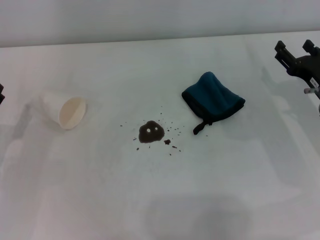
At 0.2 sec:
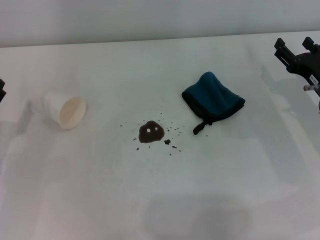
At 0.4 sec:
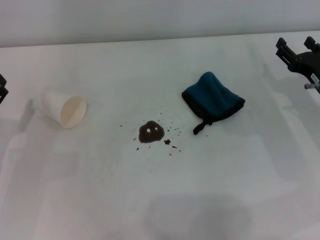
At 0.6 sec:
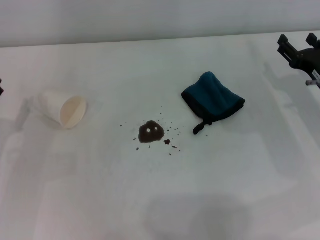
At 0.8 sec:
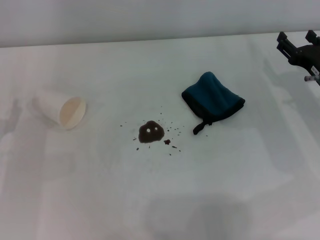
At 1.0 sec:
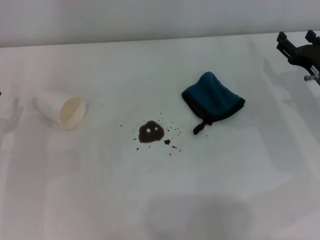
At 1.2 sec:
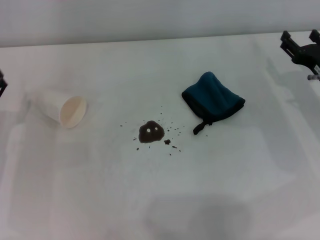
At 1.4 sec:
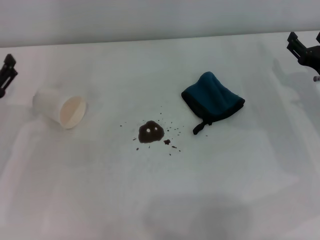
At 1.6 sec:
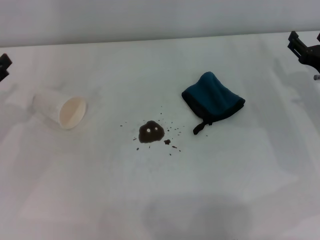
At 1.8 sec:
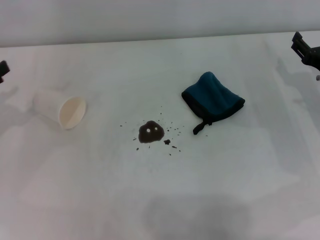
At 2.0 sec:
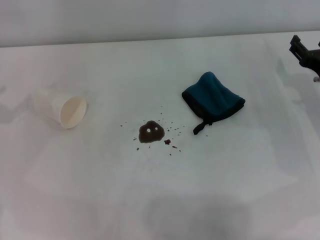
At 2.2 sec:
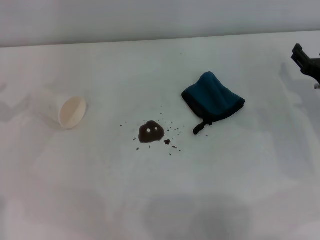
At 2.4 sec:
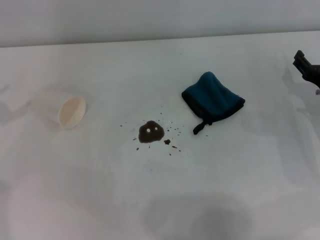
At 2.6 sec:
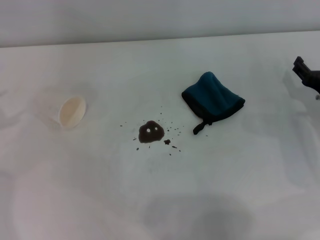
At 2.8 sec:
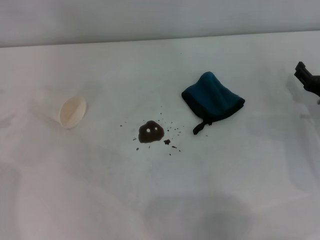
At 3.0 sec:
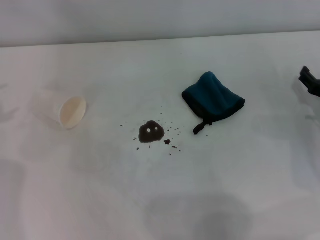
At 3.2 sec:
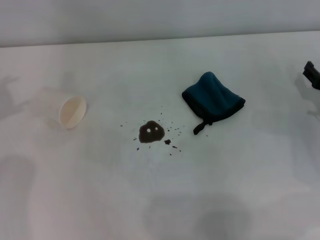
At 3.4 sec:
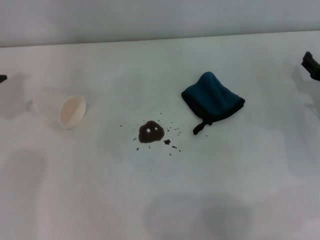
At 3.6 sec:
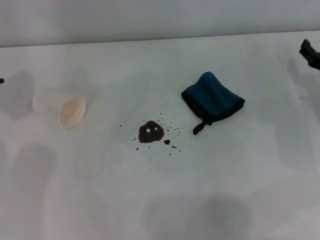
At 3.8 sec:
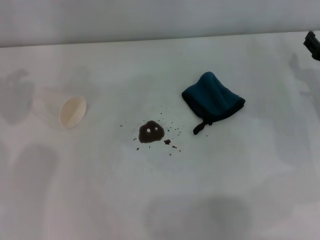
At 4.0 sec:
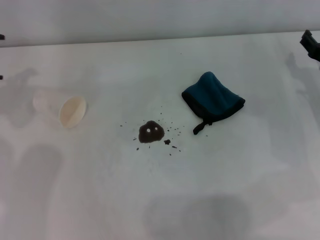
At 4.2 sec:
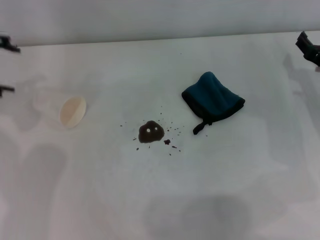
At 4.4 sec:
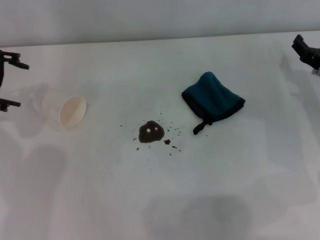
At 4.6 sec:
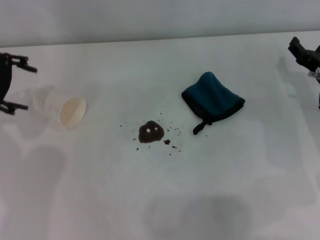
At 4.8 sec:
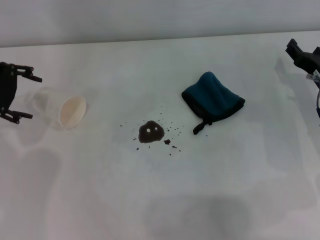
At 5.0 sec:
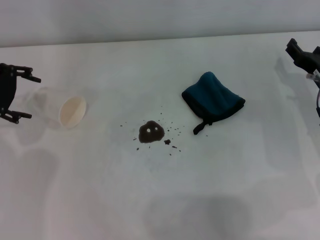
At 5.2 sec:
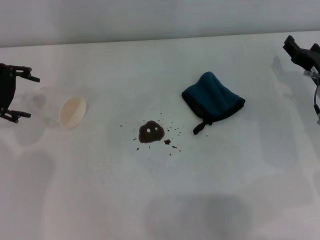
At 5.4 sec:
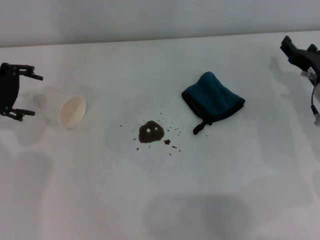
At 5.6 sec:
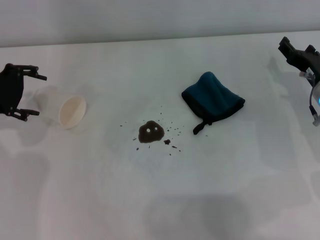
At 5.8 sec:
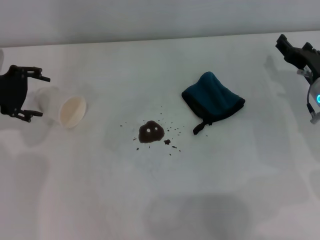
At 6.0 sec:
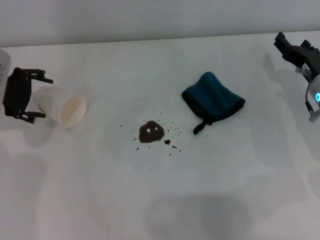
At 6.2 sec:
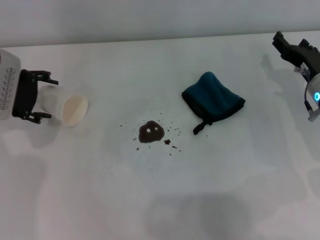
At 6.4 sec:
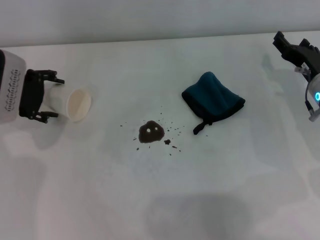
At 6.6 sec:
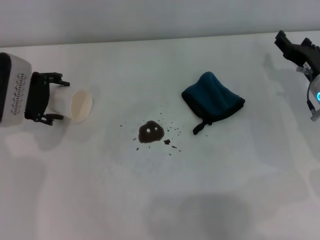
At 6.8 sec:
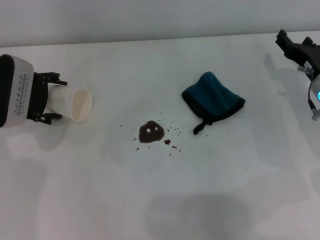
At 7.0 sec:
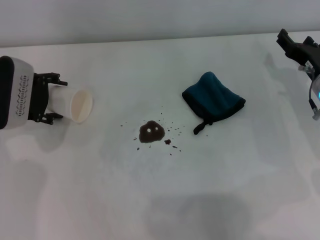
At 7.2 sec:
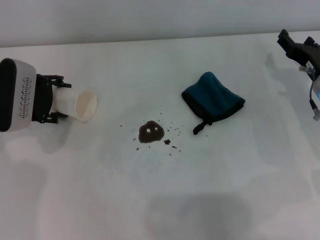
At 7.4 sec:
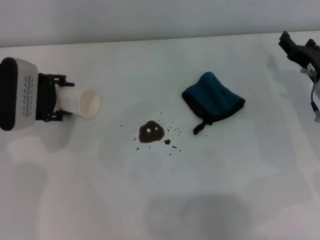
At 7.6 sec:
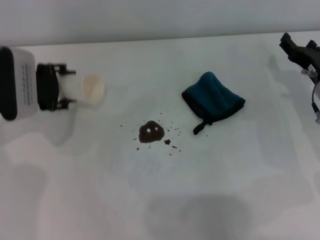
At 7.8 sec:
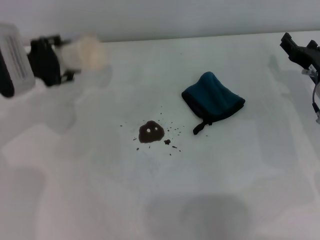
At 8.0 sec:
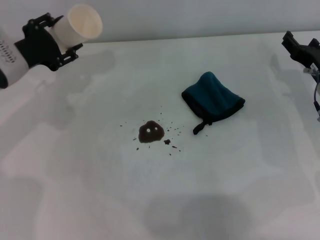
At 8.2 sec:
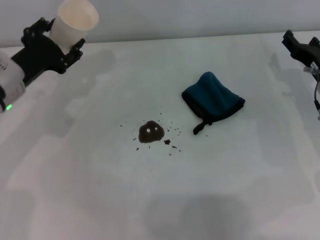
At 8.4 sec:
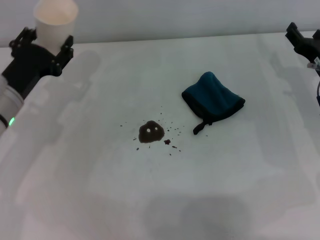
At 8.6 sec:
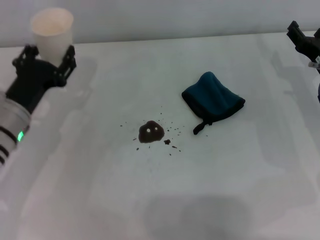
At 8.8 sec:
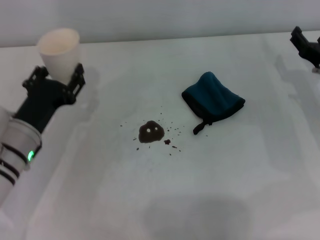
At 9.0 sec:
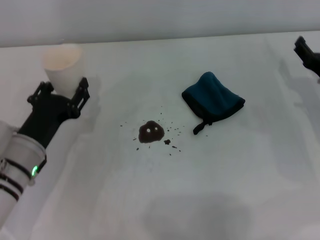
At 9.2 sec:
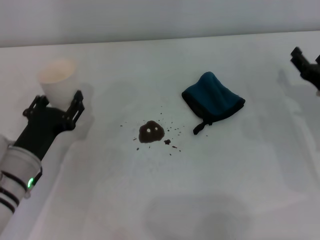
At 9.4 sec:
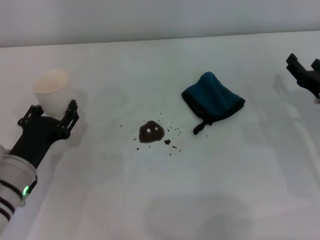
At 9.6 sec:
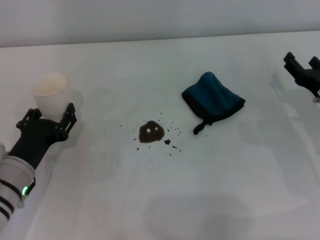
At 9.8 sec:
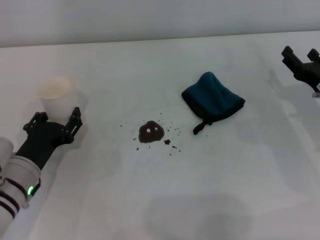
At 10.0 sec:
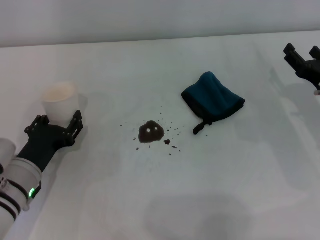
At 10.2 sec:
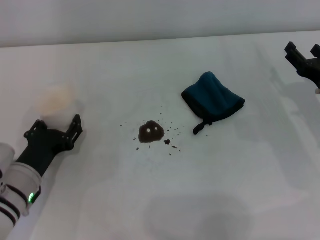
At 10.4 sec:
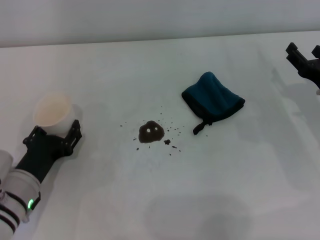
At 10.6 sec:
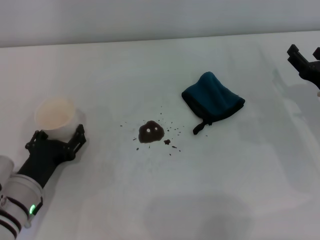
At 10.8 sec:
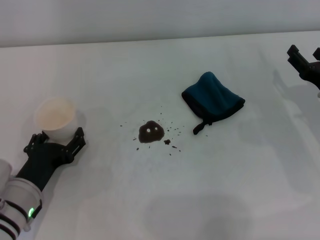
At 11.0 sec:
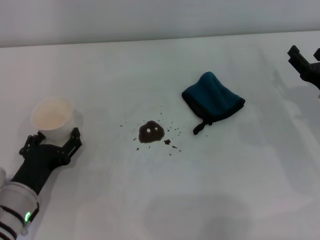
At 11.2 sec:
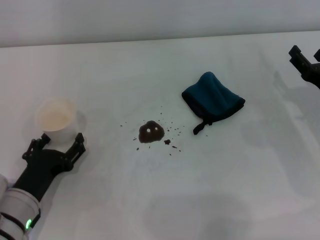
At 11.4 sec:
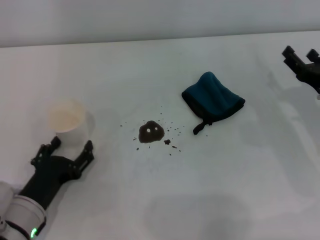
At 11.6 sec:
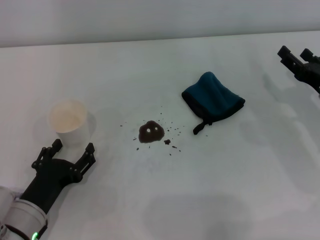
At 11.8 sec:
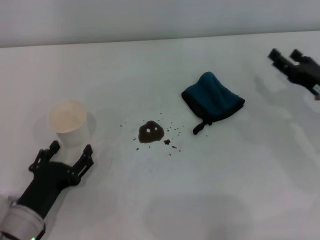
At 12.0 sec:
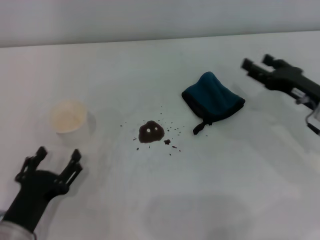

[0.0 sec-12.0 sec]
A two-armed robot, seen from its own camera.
Step, 0.0 sec to 6.4 sec: Grasp the paper cup with the left gripper.
Step, 6.6 sec to 10.8 sec: Stand the paper cup upright with the left gripper.
3.0 sec to 4.4 sec: The right gripper ends up some 5 cm from where it was; the left gripper heads to the right, covering some 10 cm.
4.4 sec to 6.0 sec: The left gripper is displaced downward by some 5 cm.
6.0 sec to 7.6 sec: The left gripper closes its fingers.
7.6 sec to 9.0 sec: The left gripper is displaced backward and downward by roughly 15 cm.
9.0 sec to 10.4 sec: The left gripper shifts by approximately 5 cm.
10.4 sec to 12.0 sec: The left gripper shifts roughly 10 cm backward, and opens its fingers.

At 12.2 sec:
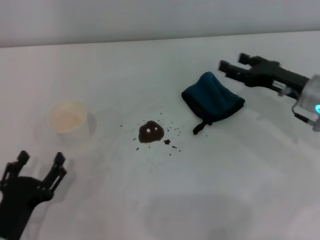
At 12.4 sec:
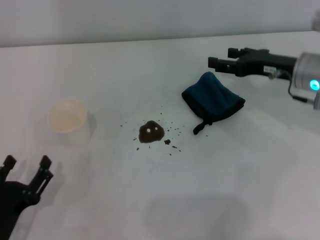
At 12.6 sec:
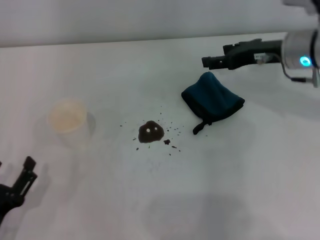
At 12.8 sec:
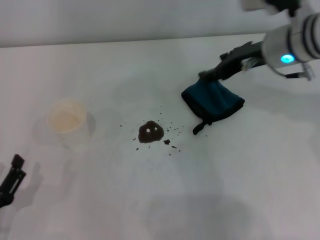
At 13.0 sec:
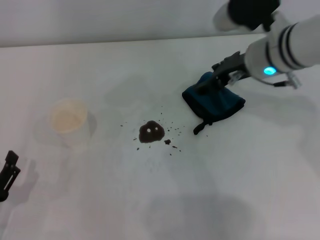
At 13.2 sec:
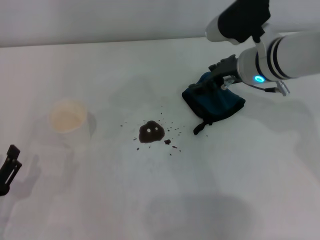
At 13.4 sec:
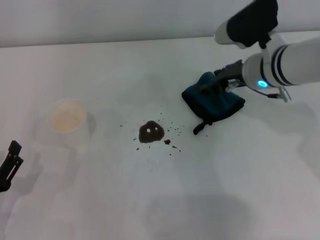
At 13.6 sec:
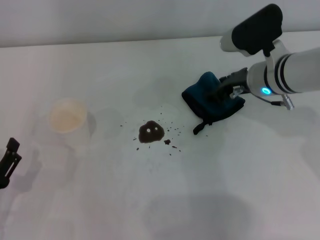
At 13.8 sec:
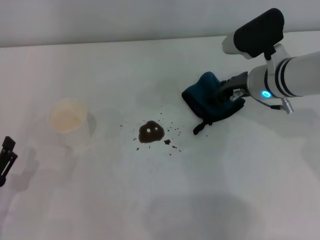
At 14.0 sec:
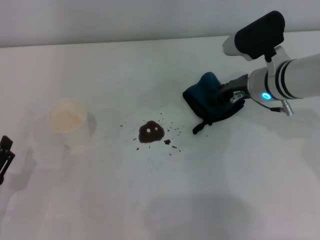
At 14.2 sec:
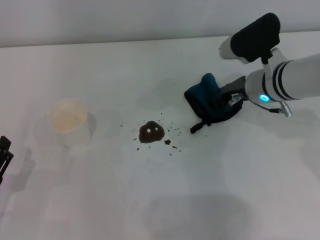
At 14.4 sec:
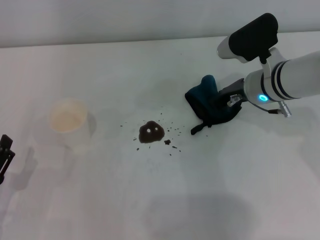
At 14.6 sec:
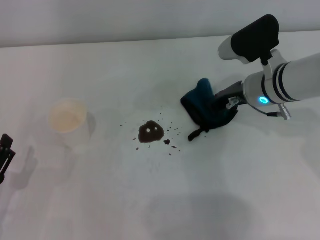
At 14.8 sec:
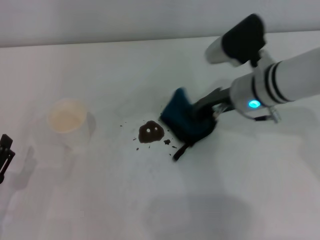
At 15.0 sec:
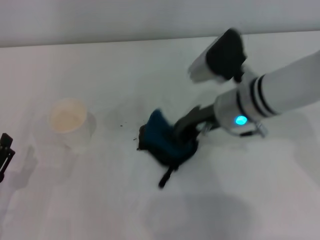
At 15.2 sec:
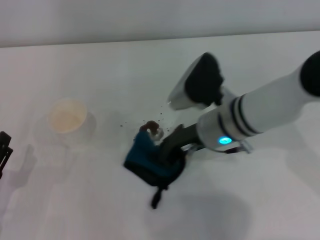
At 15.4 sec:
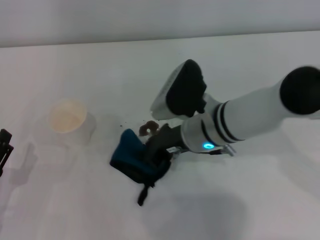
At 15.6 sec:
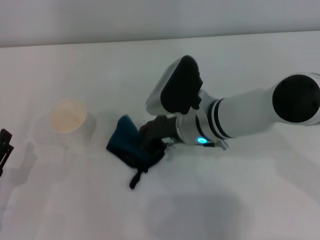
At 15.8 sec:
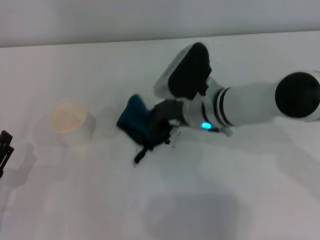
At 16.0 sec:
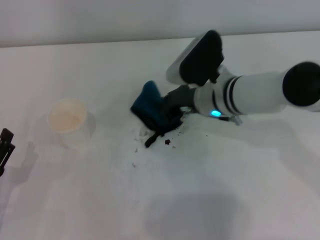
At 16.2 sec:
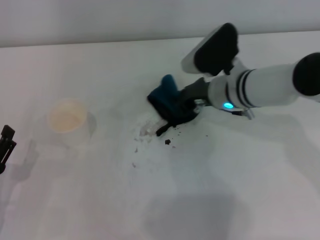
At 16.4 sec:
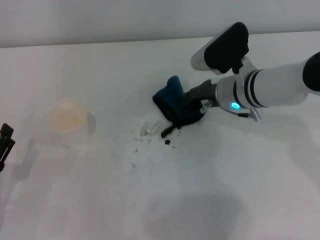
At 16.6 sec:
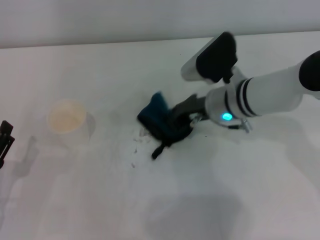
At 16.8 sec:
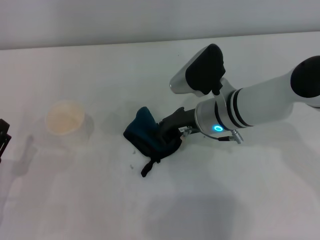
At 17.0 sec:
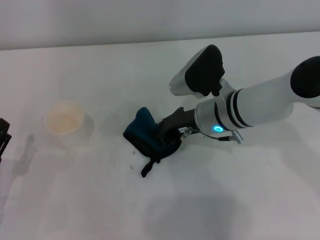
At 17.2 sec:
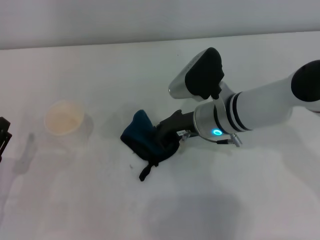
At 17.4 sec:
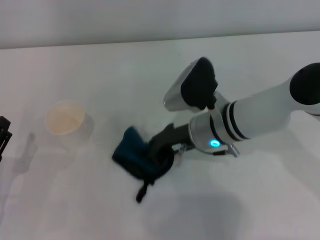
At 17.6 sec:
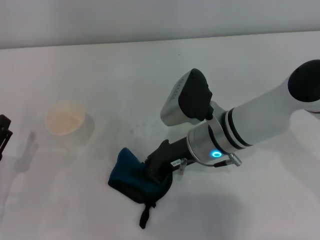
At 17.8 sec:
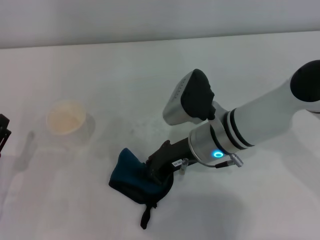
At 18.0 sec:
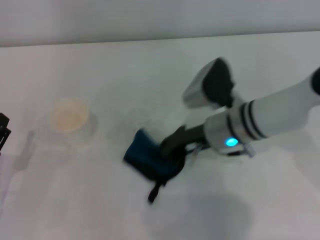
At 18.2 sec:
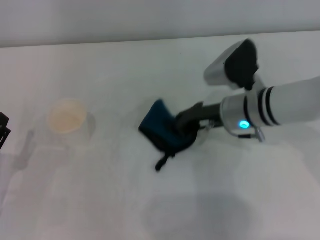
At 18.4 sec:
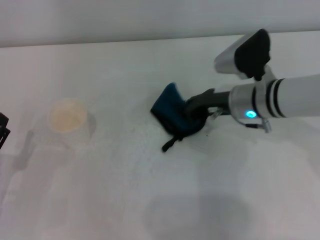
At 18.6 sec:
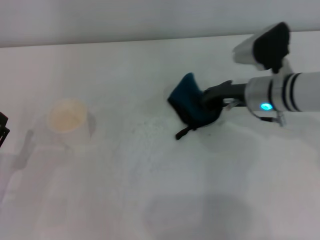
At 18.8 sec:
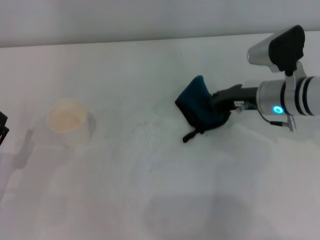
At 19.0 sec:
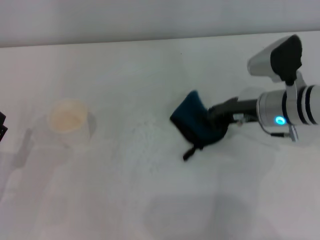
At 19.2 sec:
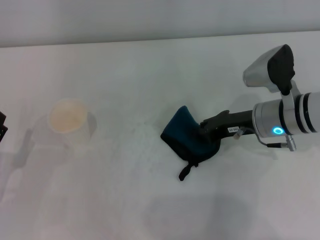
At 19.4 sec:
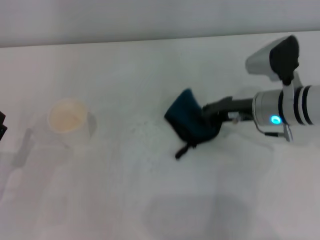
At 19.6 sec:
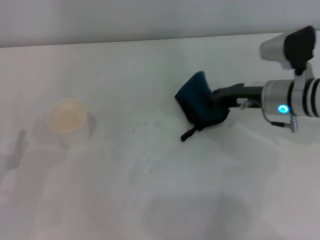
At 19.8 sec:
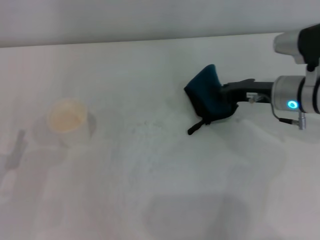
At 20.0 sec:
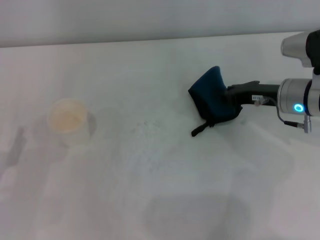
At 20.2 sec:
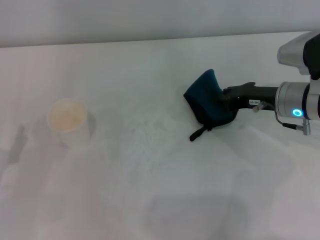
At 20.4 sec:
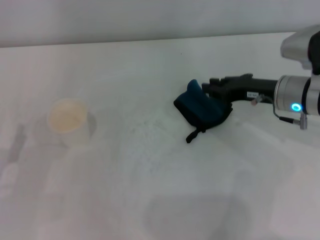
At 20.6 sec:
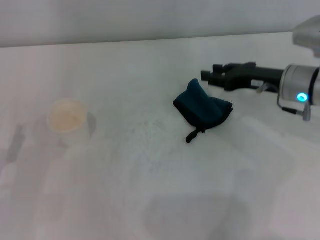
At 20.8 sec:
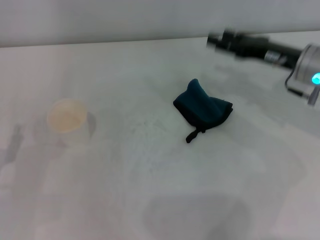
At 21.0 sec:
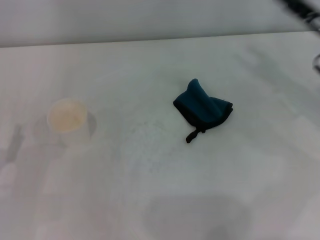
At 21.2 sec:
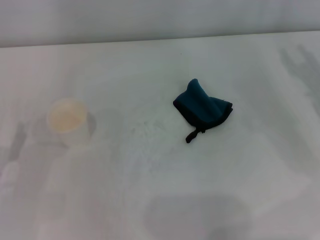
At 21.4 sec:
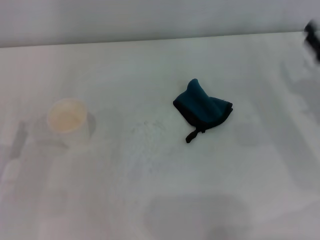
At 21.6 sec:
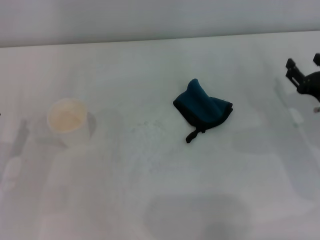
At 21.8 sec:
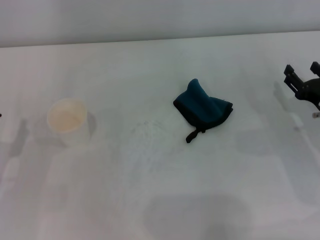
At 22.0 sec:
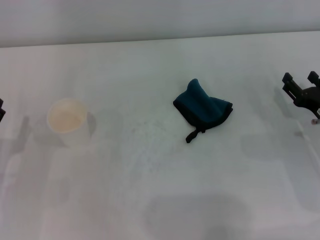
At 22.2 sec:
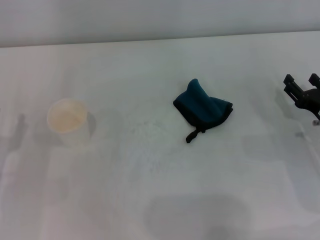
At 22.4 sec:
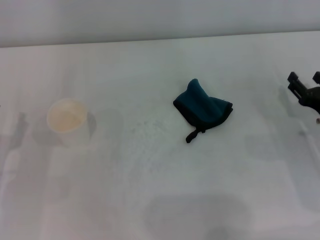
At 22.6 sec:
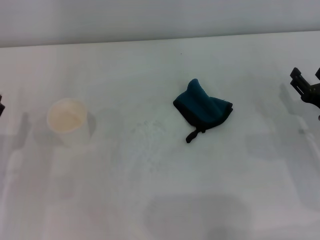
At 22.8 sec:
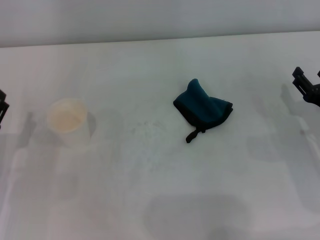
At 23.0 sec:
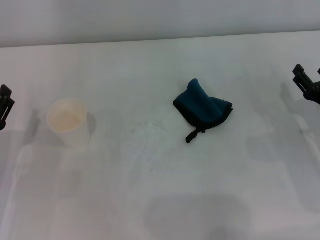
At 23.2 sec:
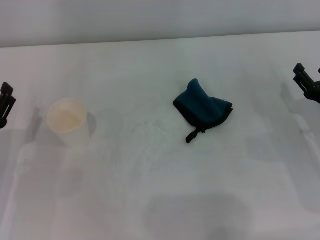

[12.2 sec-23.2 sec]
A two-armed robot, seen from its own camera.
Step, 12.2 sec to 13.8 sec: Grasp the rag with the right gripper.
Step, 14.0 sec to 19.0 sec: Wipe the stains off the table with the right gripper.
Step, 19.4 sec to 20.4 sec: Place the rag on the table with the right gripper.
12.2 sec to 13.8 sec: The right gripper is displaced to the left and forward by roughly 10 cm. Meanwhile the left gripper heads to the left, covering some 5 cm.
13.8 sec to 15.4 sec: The right gripper heads to the left and backward, covering approximately 10 cm, and closes.
17.0 sec to 18.4 sec: The right gripper travels to the right by about 5 cm.
18.4 sec to 20.0 sec: The right gripper travels to the right by roughly 5 cm.
20.0 sec to 21.6 sec: The right gripper moves to the right and backward, about 10 cm, and opens.
21.6 sec to 23.2 sec: The grippers stay close to where they were, moving slightly.
